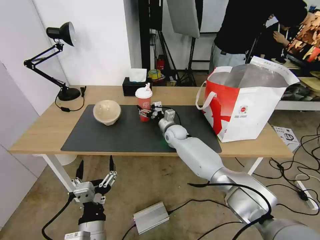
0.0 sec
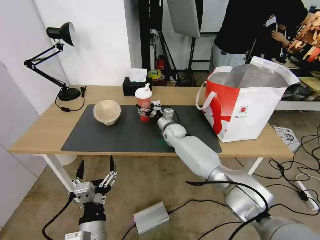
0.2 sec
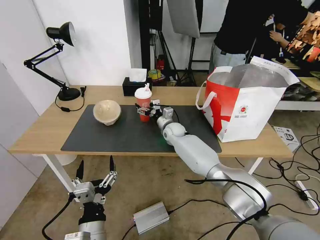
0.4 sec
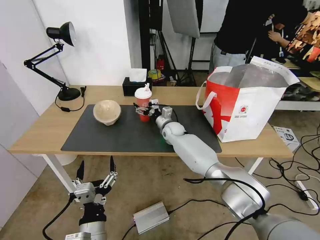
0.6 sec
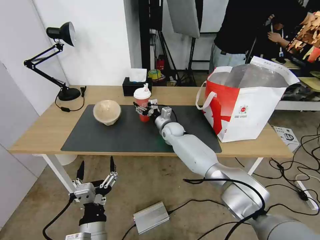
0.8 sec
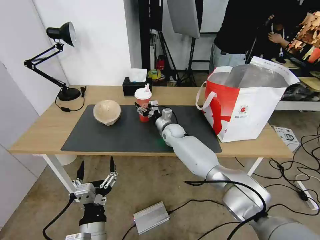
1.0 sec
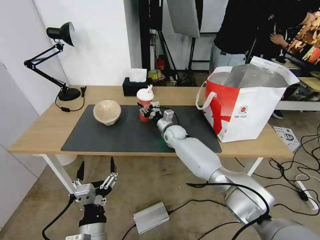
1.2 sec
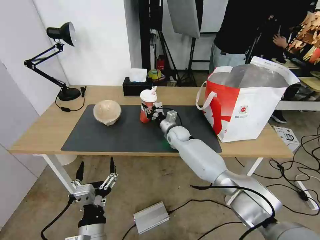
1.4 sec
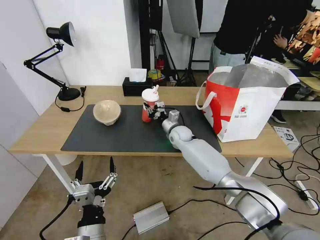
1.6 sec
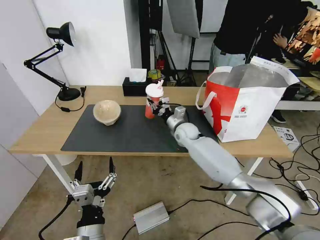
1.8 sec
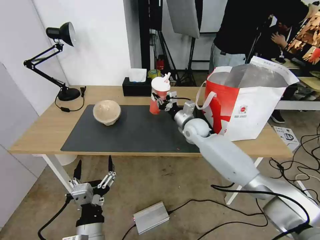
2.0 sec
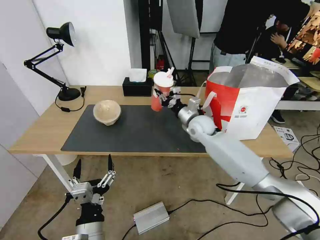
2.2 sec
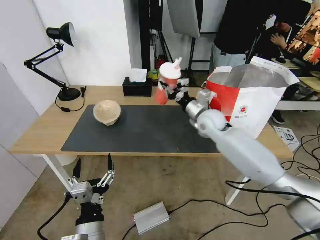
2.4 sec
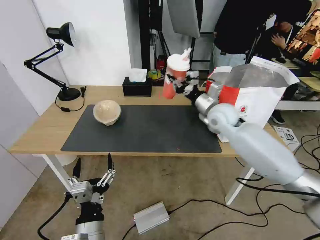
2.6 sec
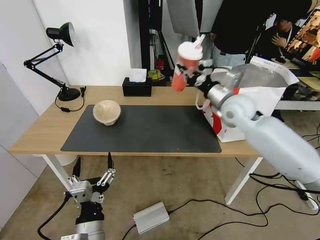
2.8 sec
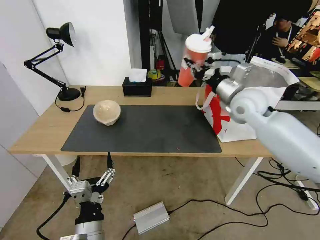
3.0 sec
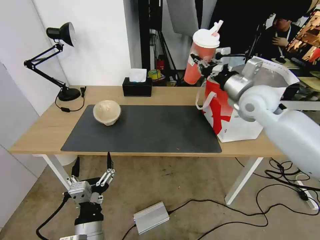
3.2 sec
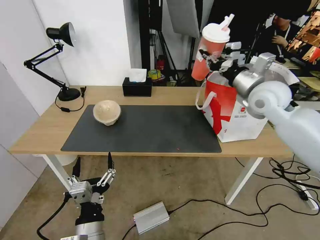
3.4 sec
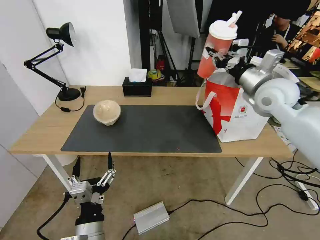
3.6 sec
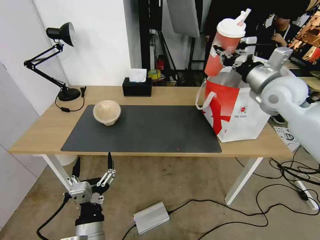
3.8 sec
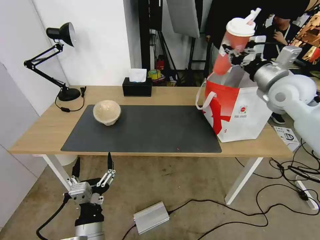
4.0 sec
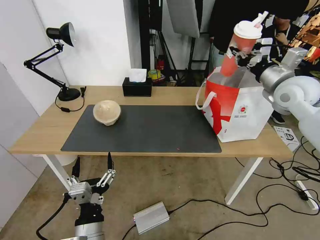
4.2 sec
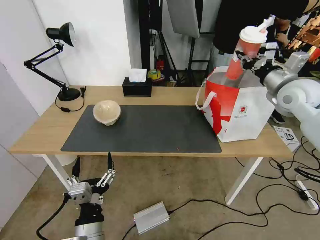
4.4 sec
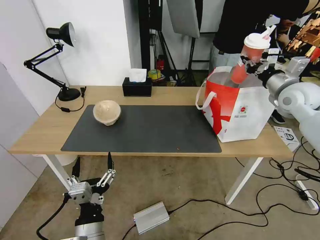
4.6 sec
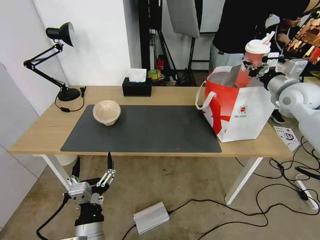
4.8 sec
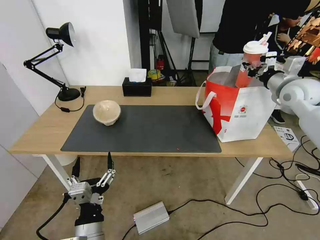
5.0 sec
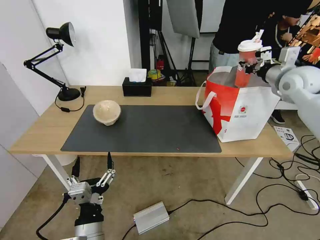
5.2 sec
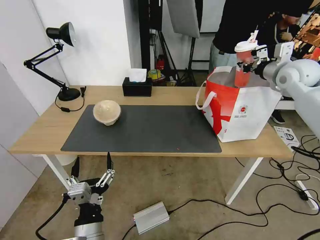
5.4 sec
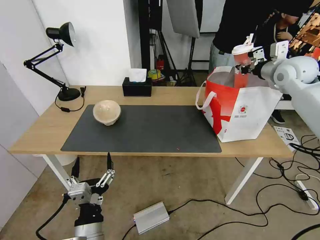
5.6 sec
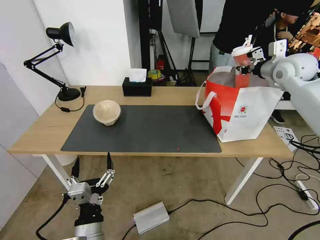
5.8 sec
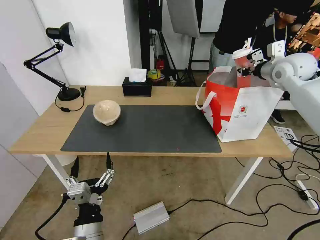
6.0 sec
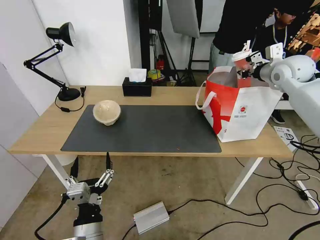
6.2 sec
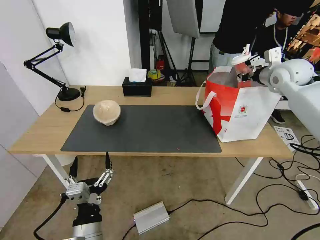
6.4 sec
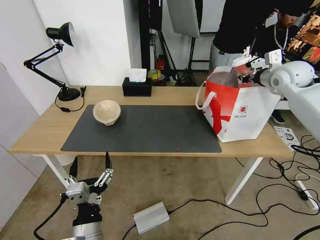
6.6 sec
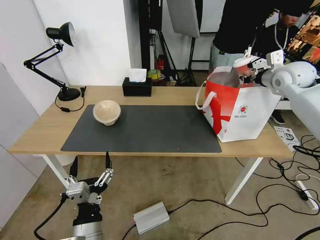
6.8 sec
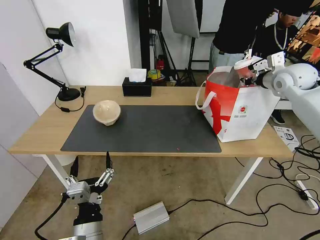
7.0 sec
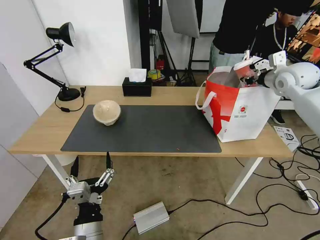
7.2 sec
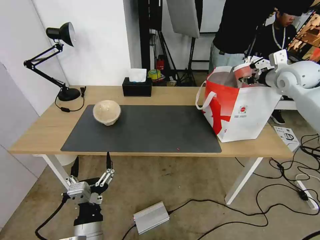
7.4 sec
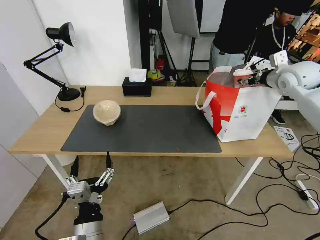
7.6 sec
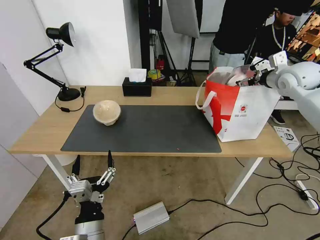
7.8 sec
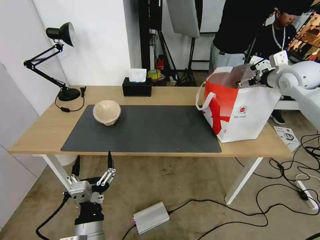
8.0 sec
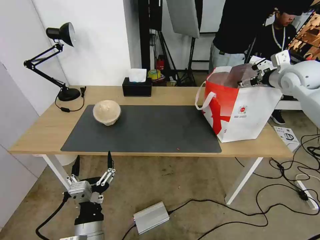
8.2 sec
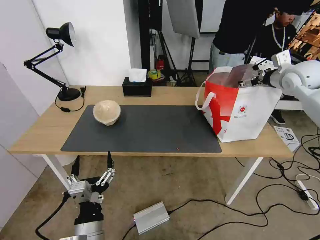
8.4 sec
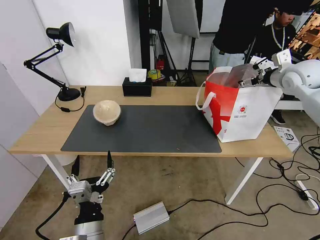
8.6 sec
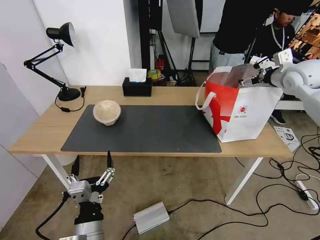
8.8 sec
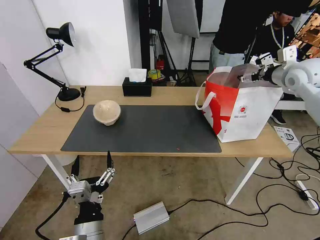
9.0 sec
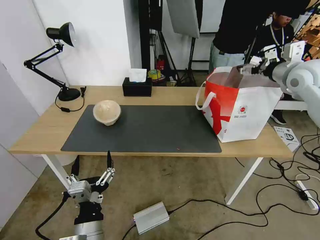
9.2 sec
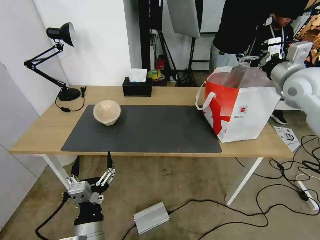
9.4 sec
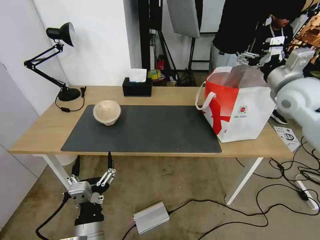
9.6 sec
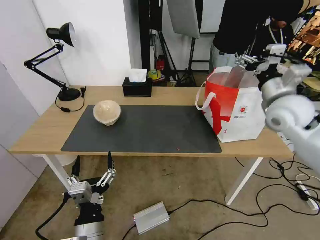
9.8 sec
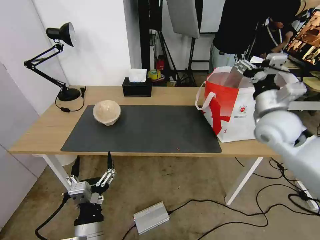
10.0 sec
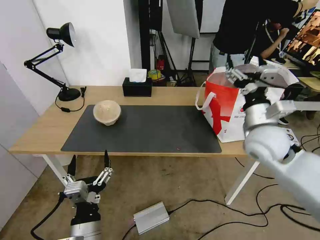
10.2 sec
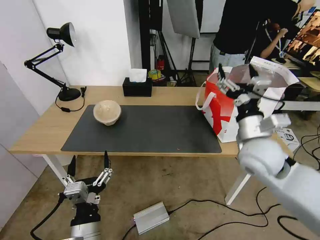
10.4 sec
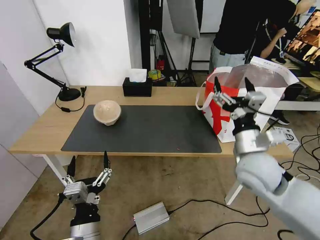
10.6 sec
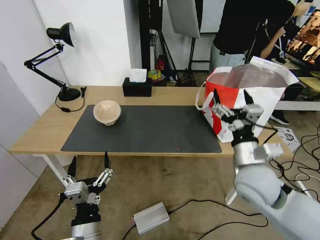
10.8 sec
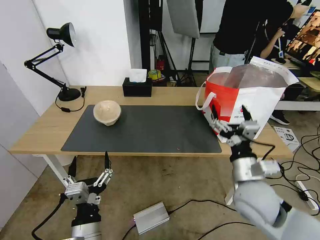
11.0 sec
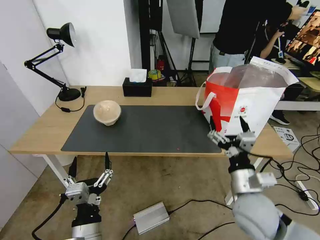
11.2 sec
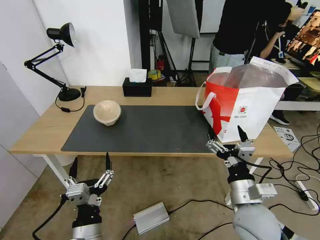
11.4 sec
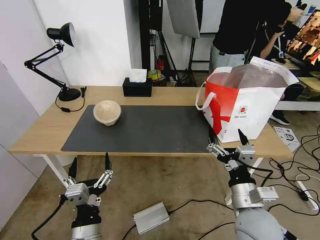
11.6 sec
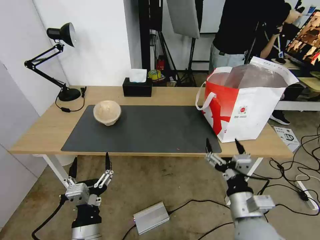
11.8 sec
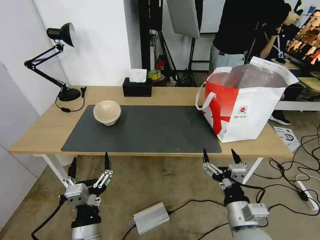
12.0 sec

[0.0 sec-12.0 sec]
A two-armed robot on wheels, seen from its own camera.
Task of the whole recording: Pick up the trash from the table and place it into the takeout bag.
0.0 sec to 1.6 sec: The right gripper closes its fingers.
1.6 sec to 3.0 sec: The right gripper moves upward and to the right, roughly 30 cm.
3.0 sec to 4.4 sec: The right gripper shifts roughly 15 cm to the right.
4.4 sec to 6.0 sec: The right gripper heads forward, covering about 10 cm.
6.0 sec to 7.6 sec: The right gripper opens up.
7.6 sec to 9.0 sec: The grippers make only small movements.
9.0 sec to 10.4 sec: The right gripper travels backward, to the left and downward by about 30 cm.
10.4 sec to 12.0 sec: The right gripper heads backward and downward, covering some 25 cm.

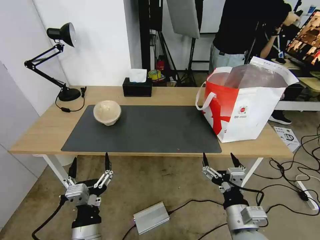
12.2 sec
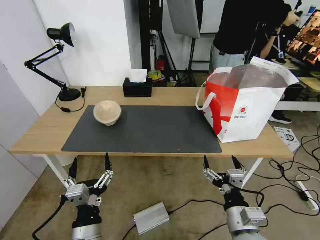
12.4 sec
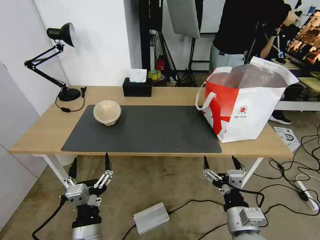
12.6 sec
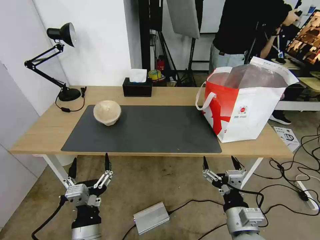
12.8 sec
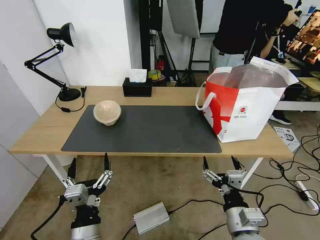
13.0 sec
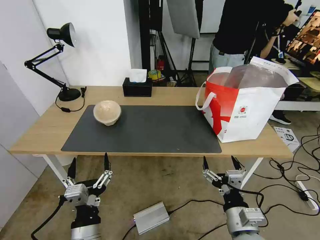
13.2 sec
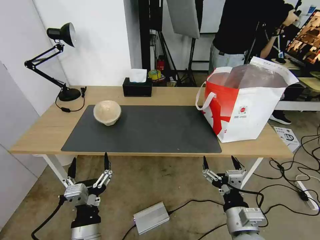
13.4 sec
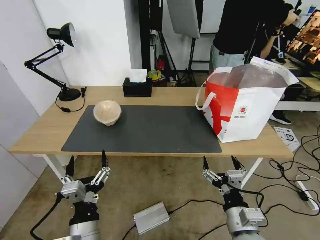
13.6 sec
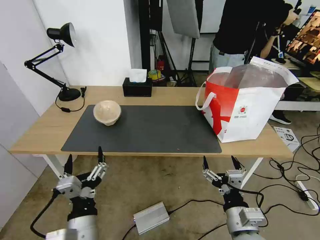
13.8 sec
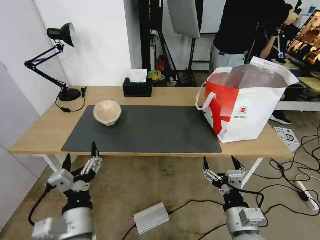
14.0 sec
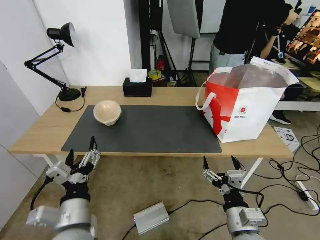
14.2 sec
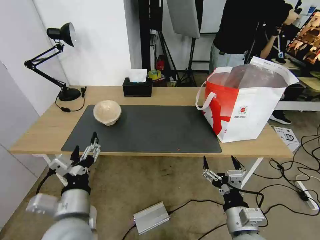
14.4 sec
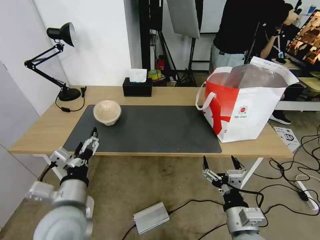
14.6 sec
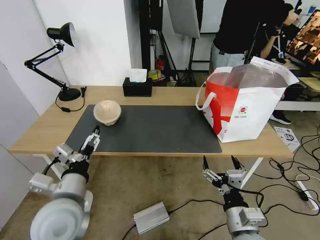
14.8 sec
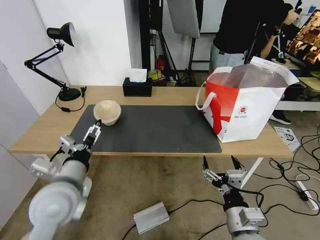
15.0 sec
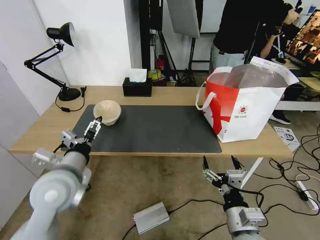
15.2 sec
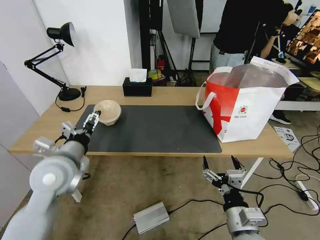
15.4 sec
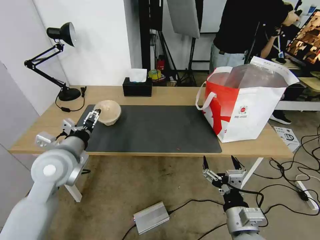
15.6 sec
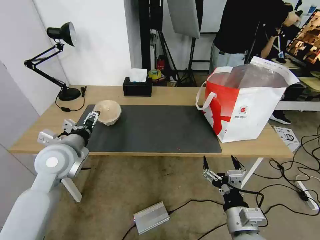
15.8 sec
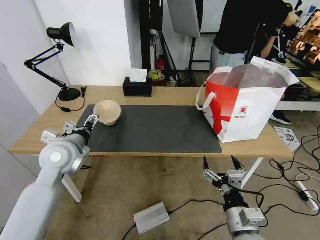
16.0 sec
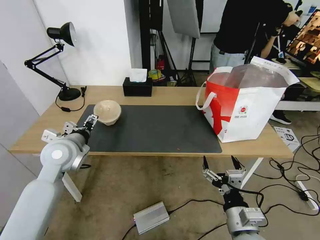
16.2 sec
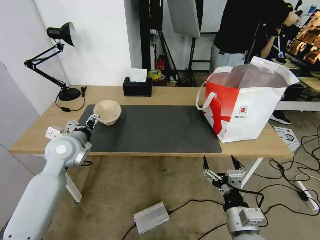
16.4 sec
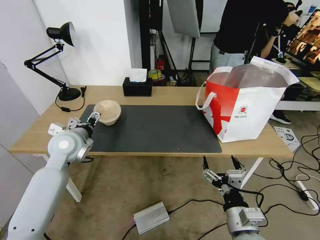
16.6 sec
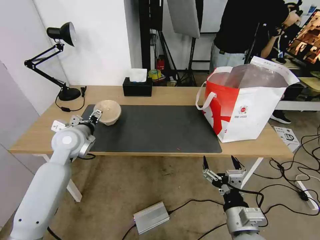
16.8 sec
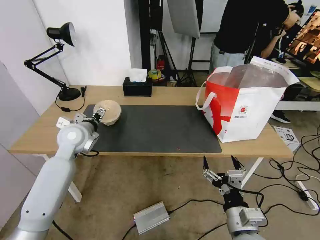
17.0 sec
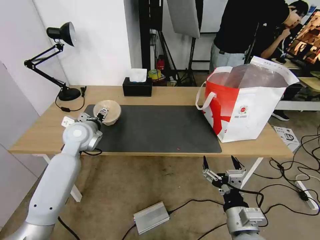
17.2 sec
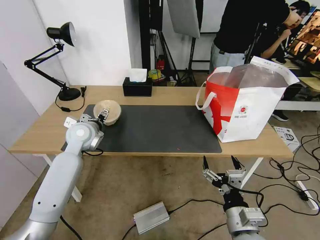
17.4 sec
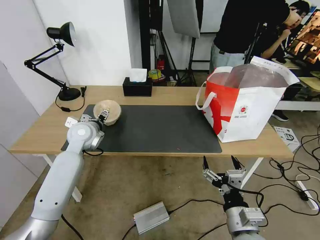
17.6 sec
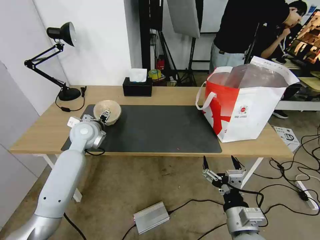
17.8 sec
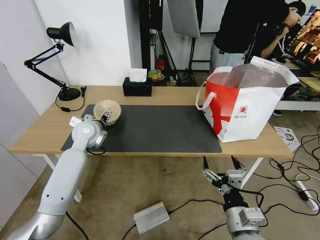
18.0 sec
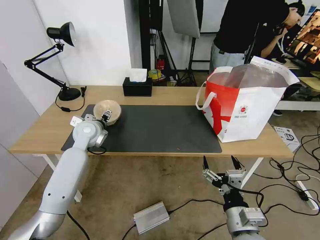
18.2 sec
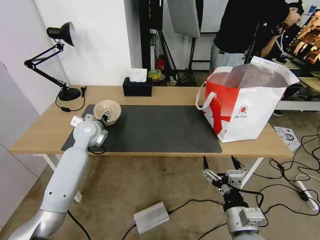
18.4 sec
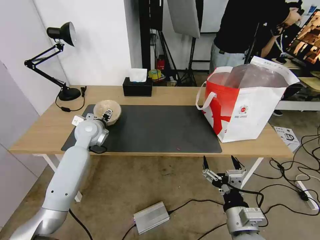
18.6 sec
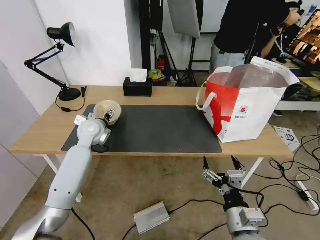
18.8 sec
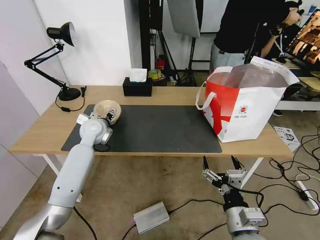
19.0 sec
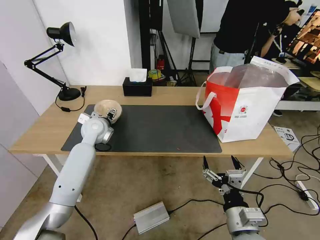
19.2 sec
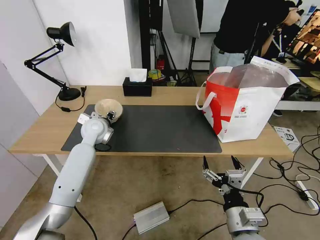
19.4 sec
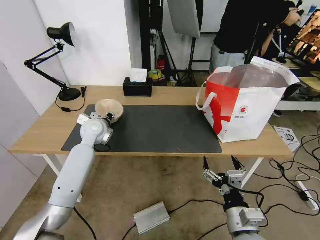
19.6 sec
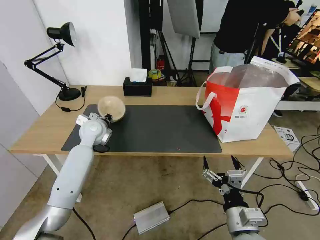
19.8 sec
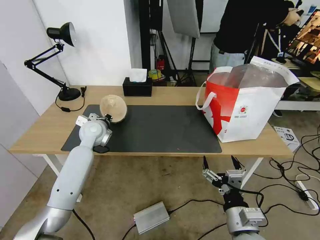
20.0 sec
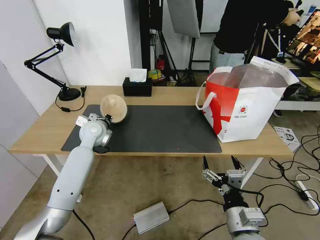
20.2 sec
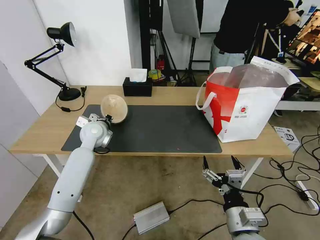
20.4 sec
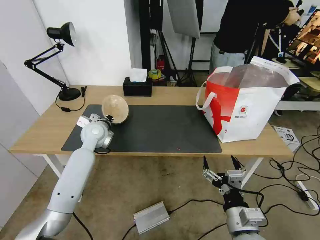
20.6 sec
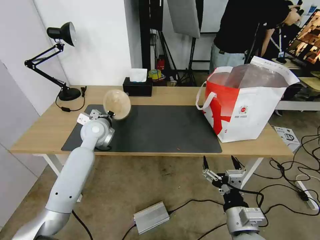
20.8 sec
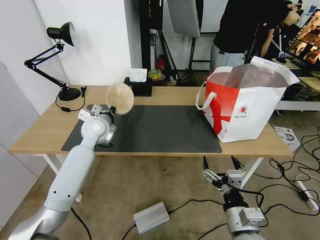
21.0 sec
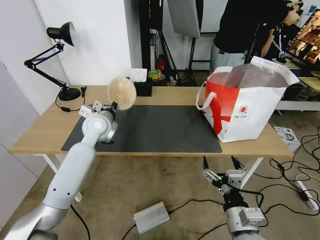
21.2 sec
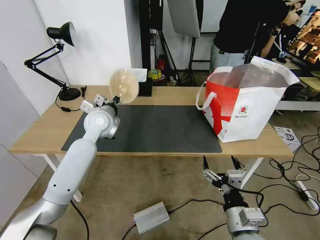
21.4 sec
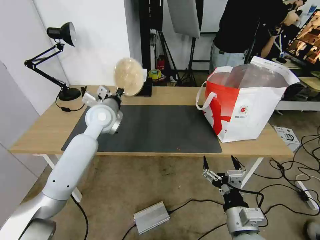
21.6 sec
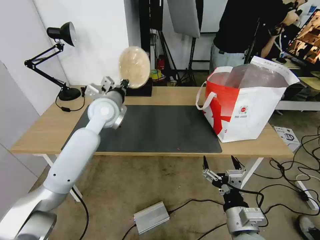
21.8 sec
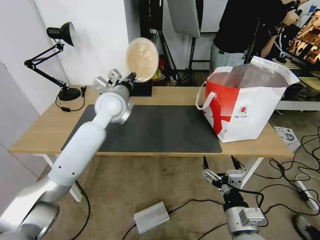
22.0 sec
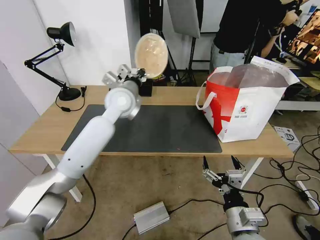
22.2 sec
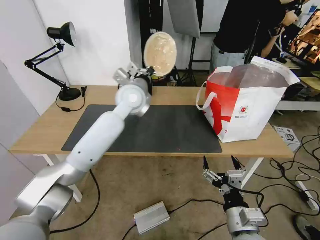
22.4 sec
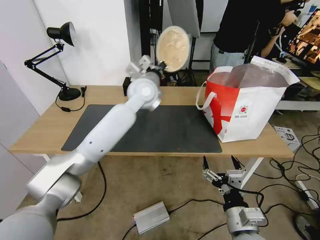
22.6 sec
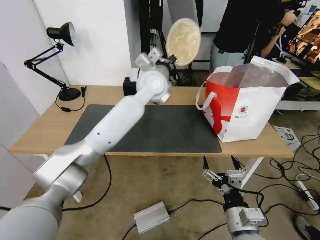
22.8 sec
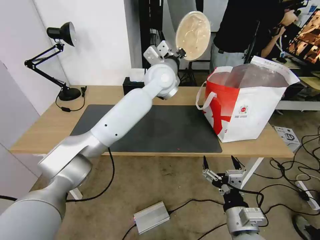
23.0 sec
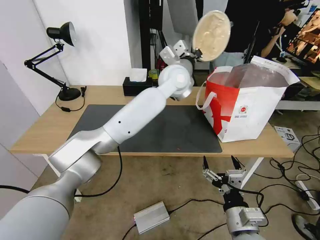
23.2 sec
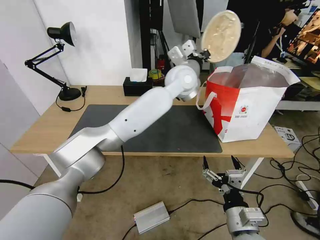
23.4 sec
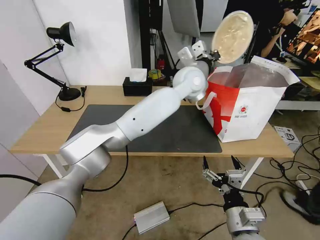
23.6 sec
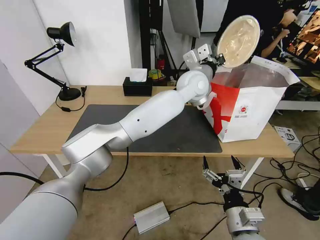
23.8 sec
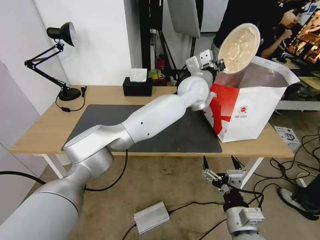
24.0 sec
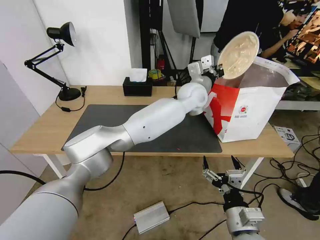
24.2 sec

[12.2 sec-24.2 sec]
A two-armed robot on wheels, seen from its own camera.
Task of the whole recording: Pick up the trash from the table and place it into the takeout bag.
12.2 sec to 13.8 sec: The grippers make only small movements.
13.8 sec to 15.2 sec: The left gripper is displaced forward, upward and to the left by roughly 20 cm.
15.2 sec to 16.6 sec: The left gripper goes some 15 cm forward.
16.6 sec to 18.2 sec: The left gripper is displaced forward by approximately 10 cm.
18.2 sec to 19.8 sec: The left gripper closes its fingers.
19.8 sec to 21.2 sec: The left gripper ends up some 5 cm from where it was.
21.2 sec to 22.6 sec: The left gripper is displaced to the right and upward by about 20 cm.
22.6 sec to 24.2 sec: The left gripper shifts some 15 cm to the right.
